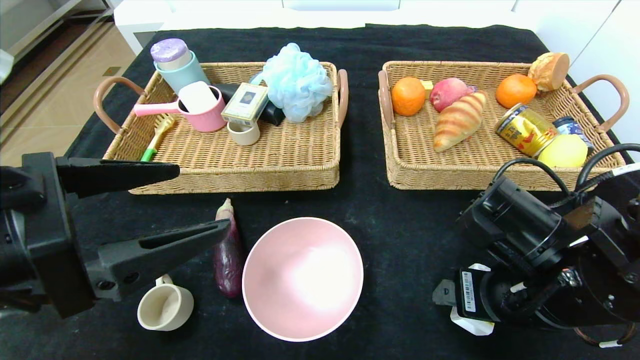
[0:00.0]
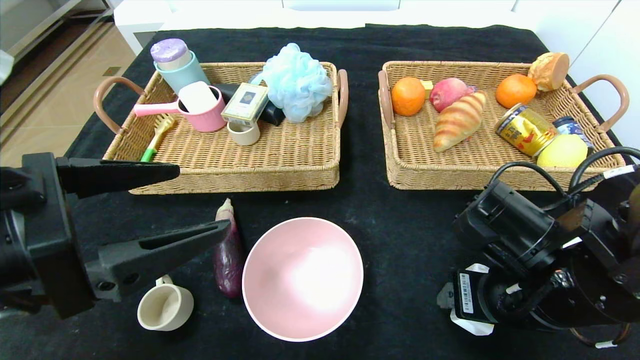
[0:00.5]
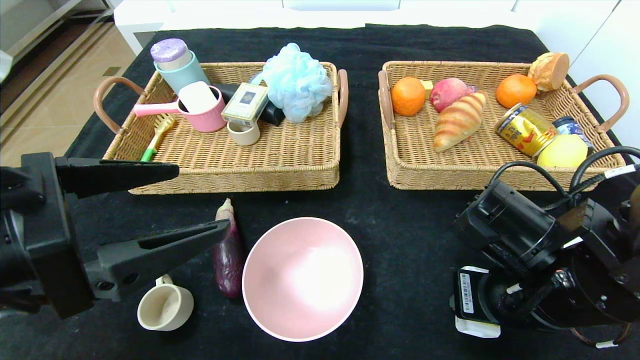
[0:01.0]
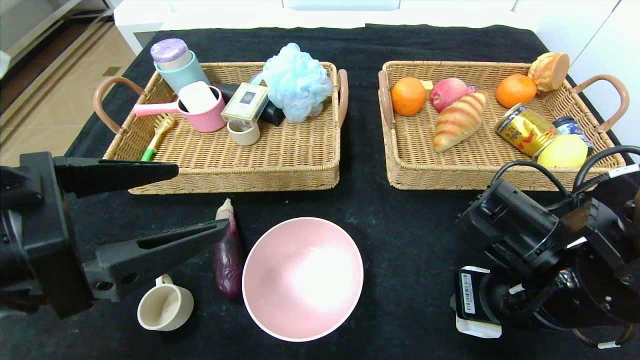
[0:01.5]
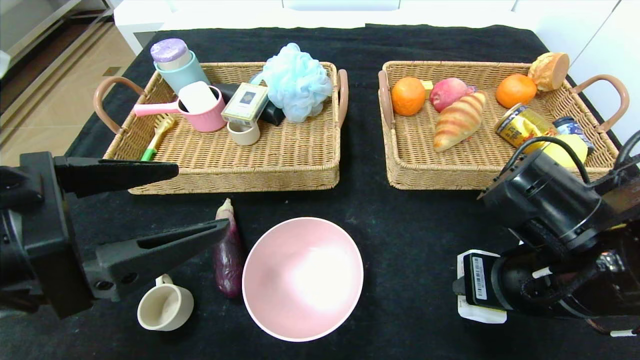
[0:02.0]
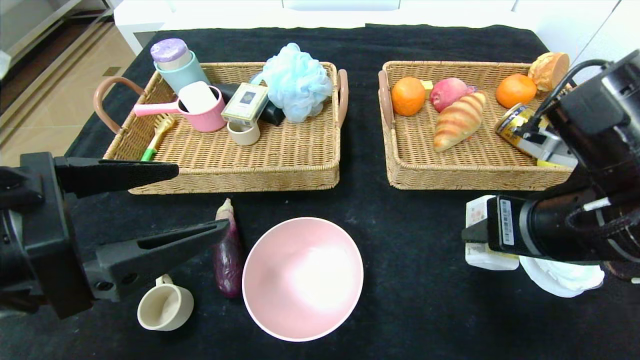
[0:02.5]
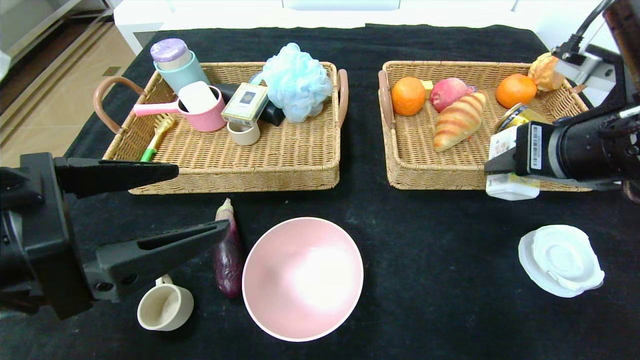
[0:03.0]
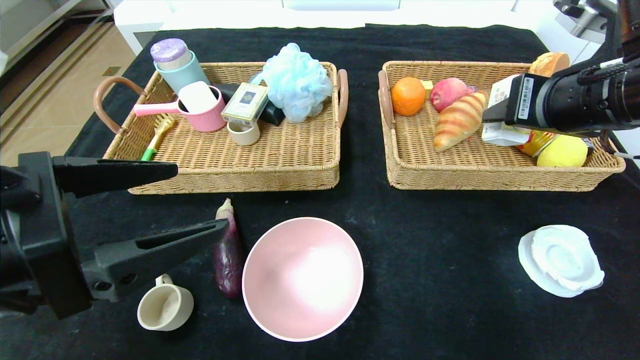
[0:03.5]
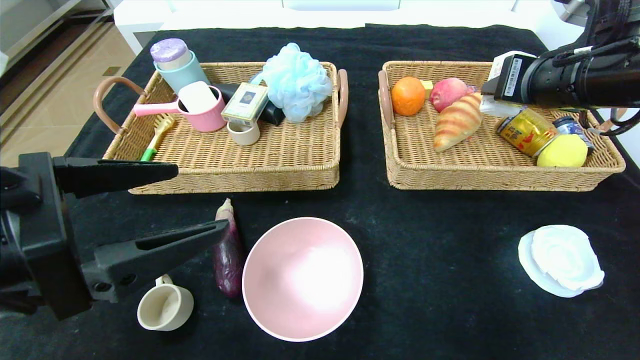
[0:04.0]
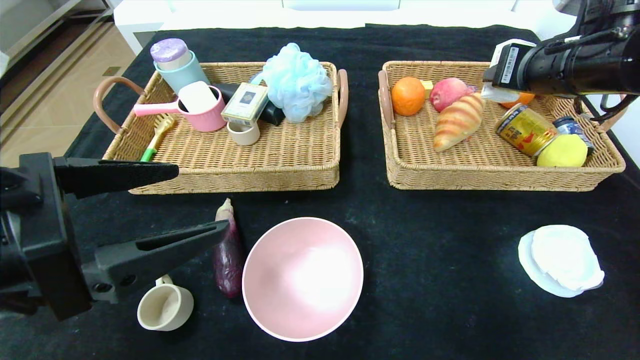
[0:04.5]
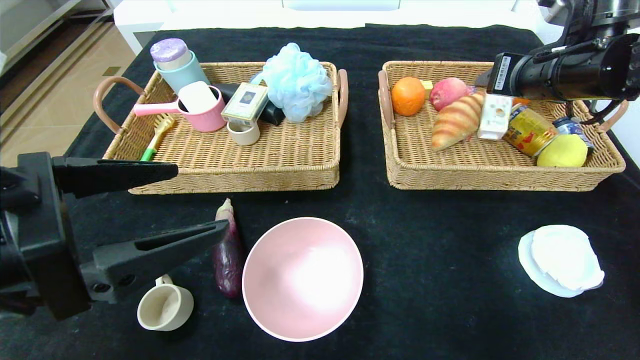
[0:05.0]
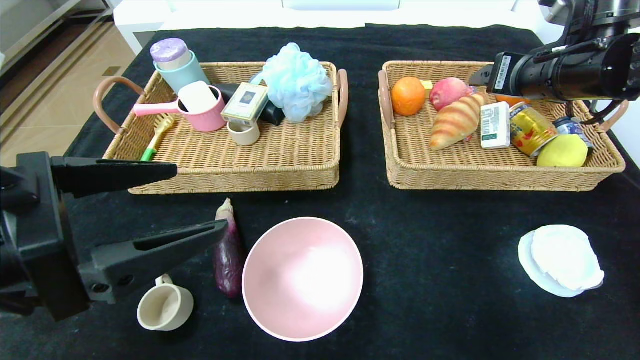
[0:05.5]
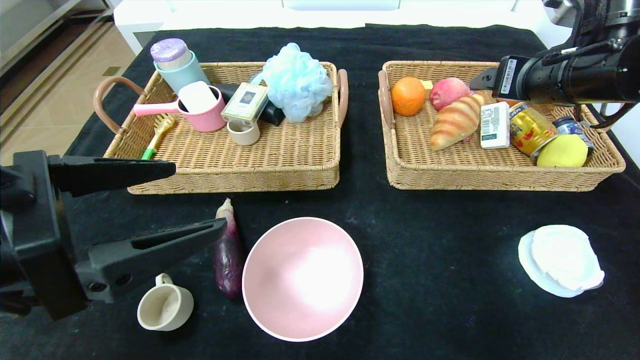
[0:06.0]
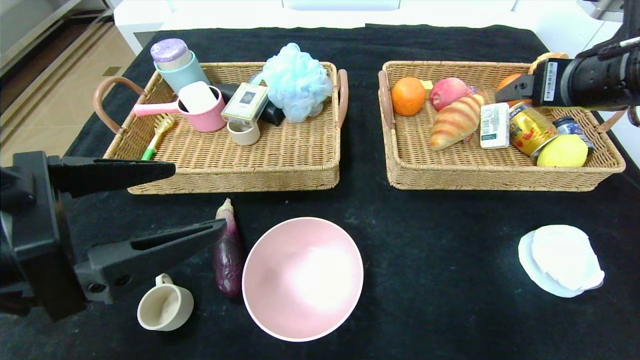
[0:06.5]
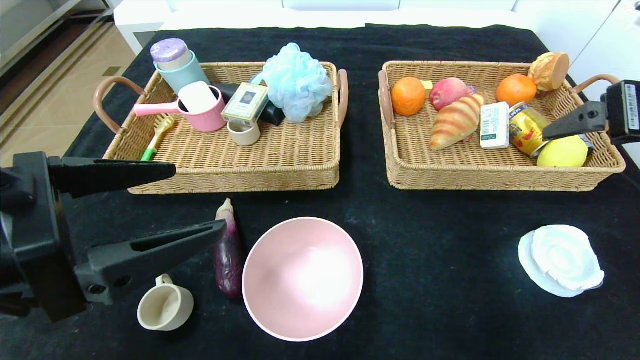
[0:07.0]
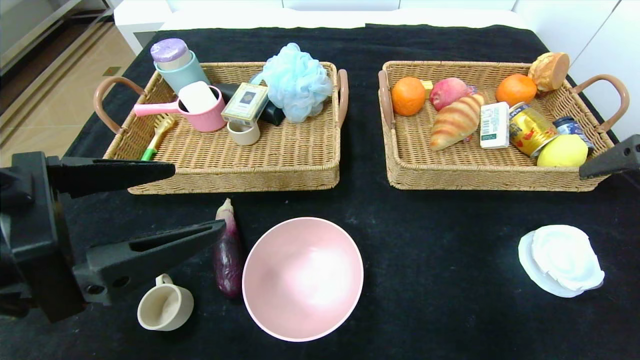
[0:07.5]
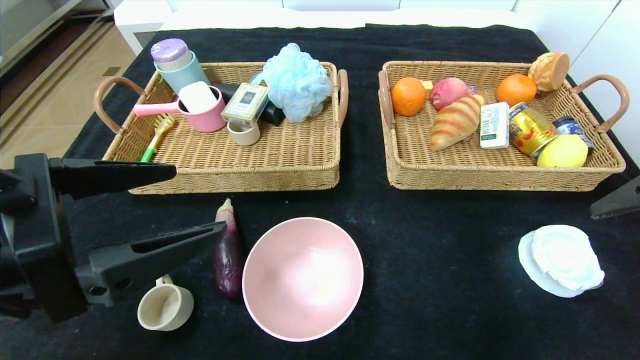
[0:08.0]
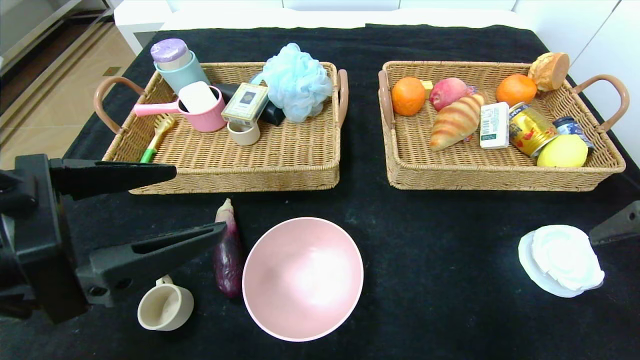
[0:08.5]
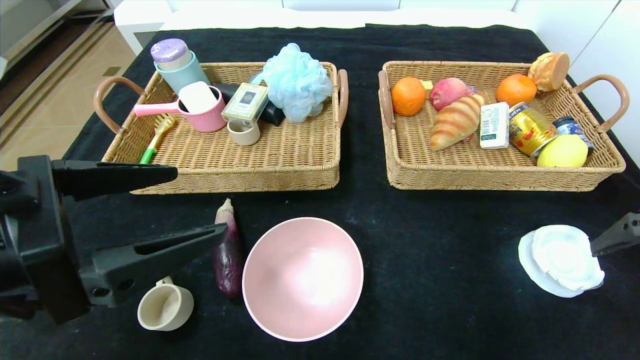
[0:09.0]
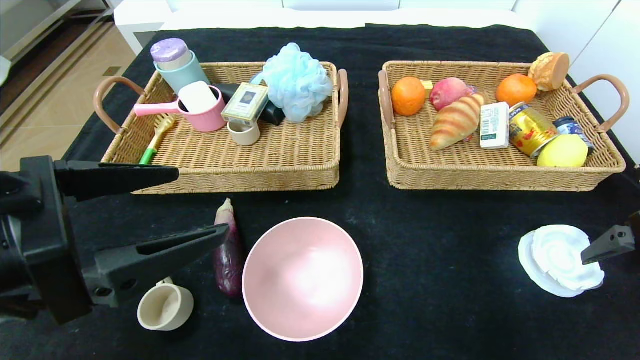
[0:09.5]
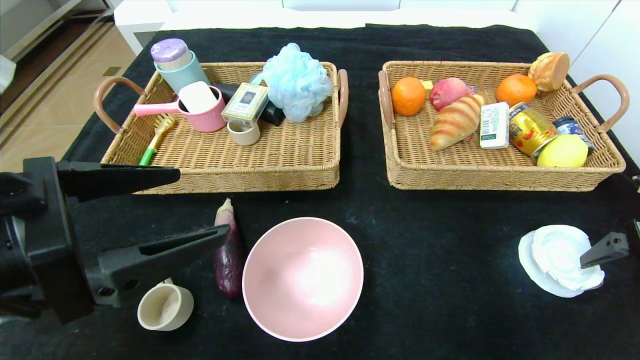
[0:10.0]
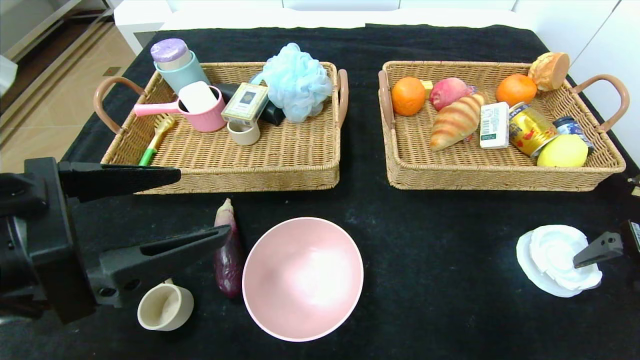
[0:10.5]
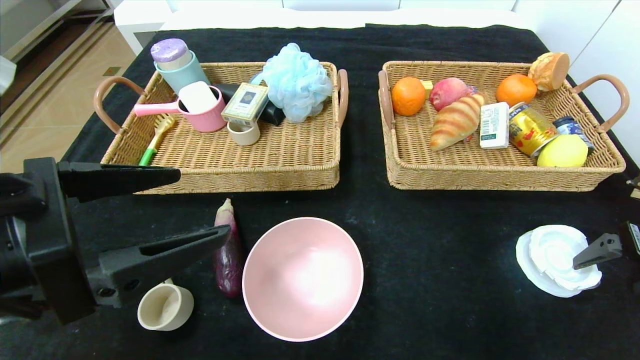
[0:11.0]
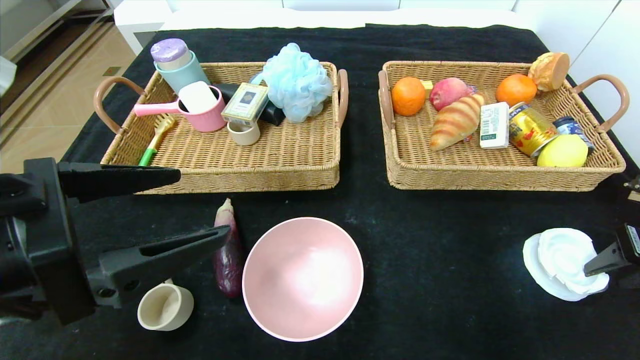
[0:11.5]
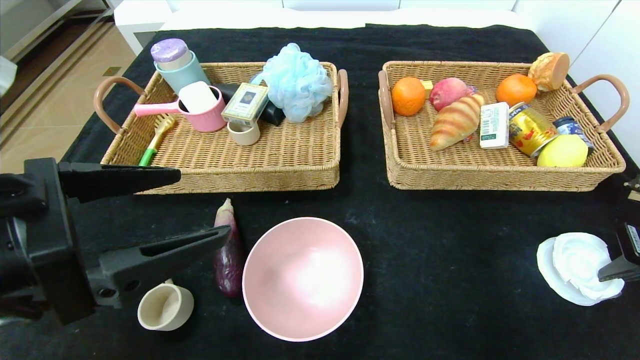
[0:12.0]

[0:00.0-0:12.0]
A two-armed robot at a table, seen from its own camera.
Step, 0.0 to 8.0 s: Pick up the square chewing gum and put it in the right basket.
0.0 to 2.0 s: The right gripper closes its fingers.
2.0 to 4.0 s: The right gripper is displaced upward, forward and to the right by approximately 20 cm.
4.0 to 6.0 s: The right gripper opens up.
6.0 to 8.0 s: The right gripper shifts approximately 15 cm backward and to the right.
8.0 to 10.0 s: The right gripper heads downward and to the right, covering approximately 10 cm.
10.0 to 12.0 s: The right gripper closes.

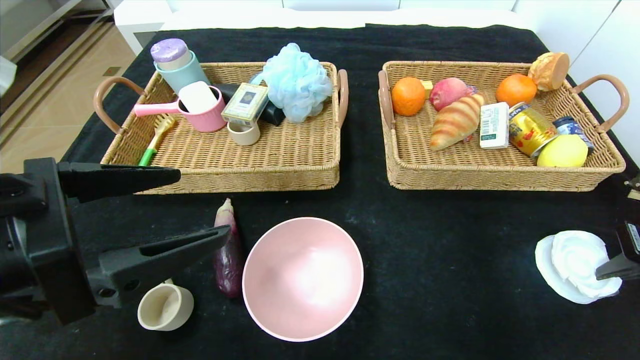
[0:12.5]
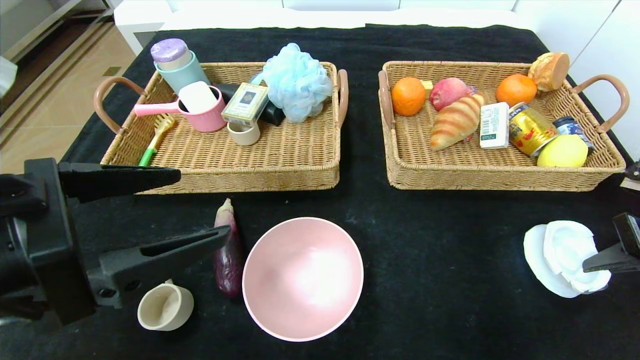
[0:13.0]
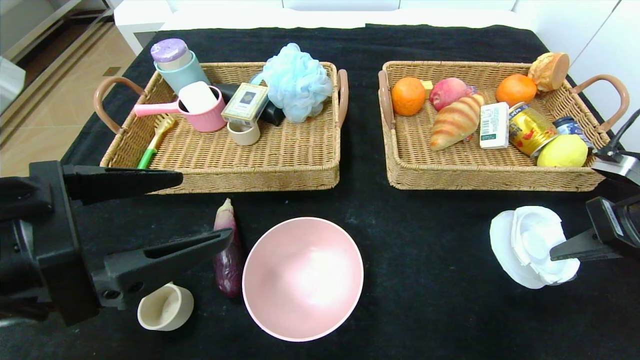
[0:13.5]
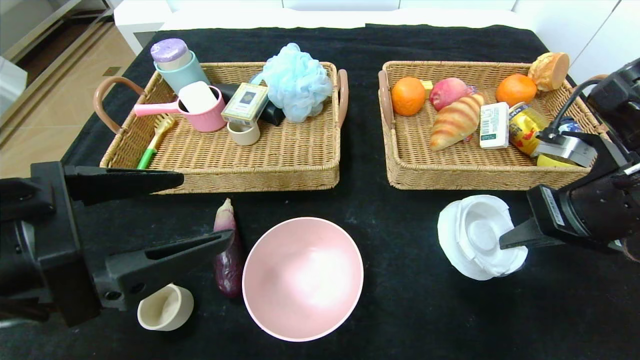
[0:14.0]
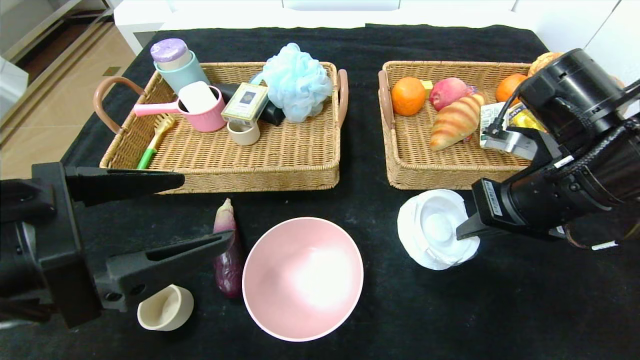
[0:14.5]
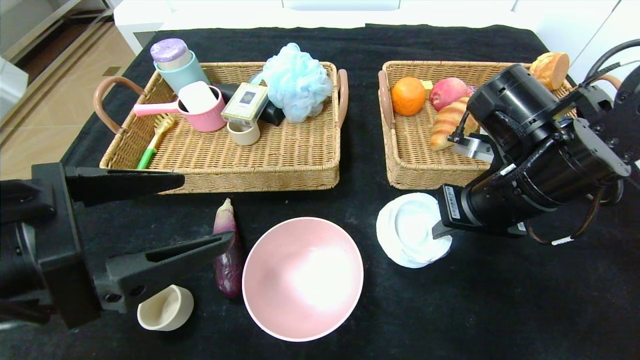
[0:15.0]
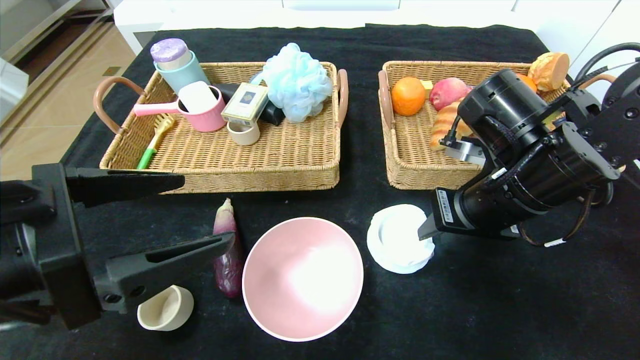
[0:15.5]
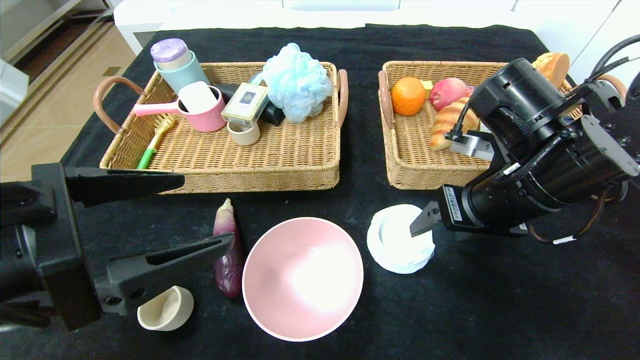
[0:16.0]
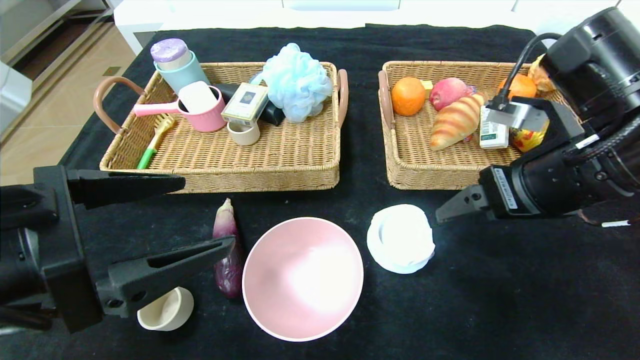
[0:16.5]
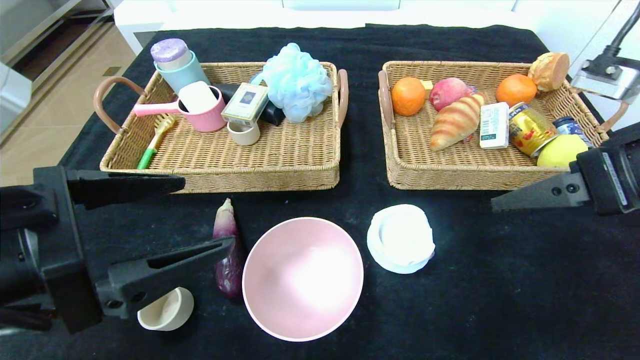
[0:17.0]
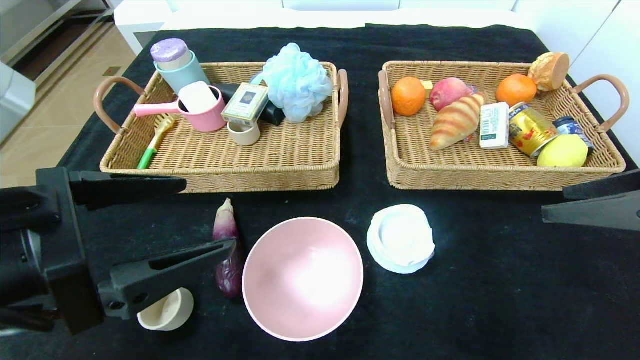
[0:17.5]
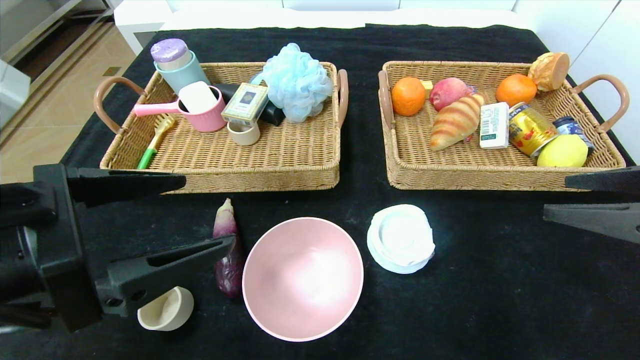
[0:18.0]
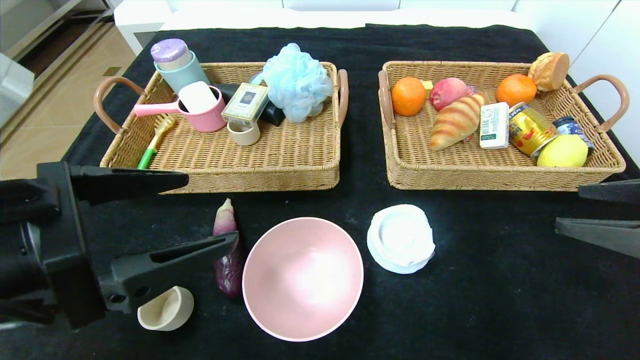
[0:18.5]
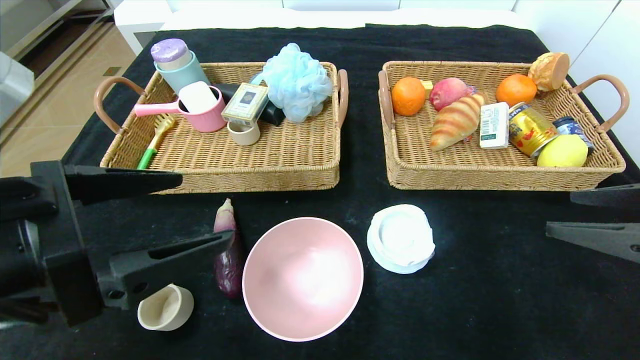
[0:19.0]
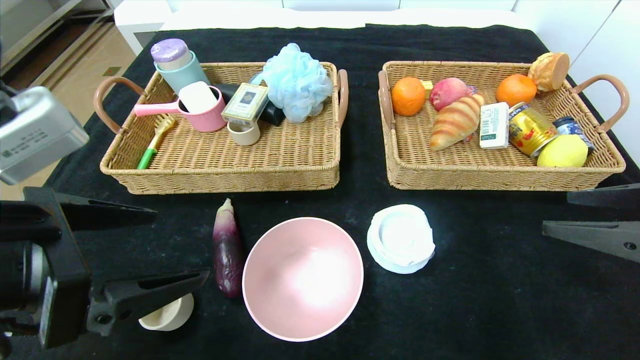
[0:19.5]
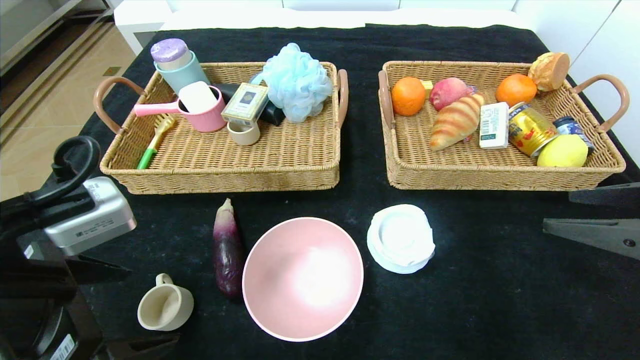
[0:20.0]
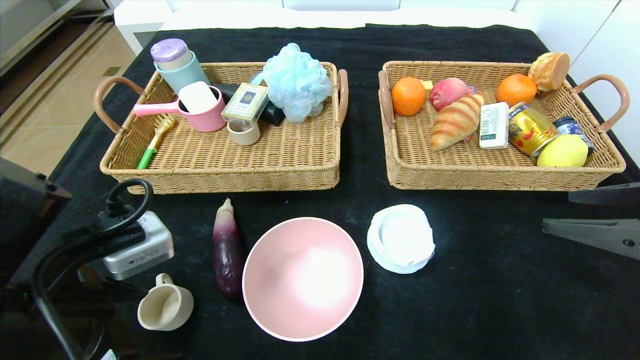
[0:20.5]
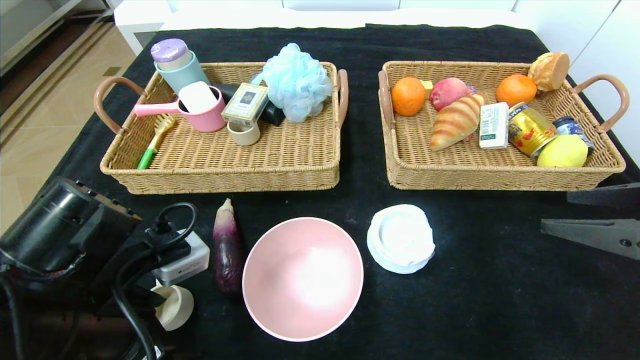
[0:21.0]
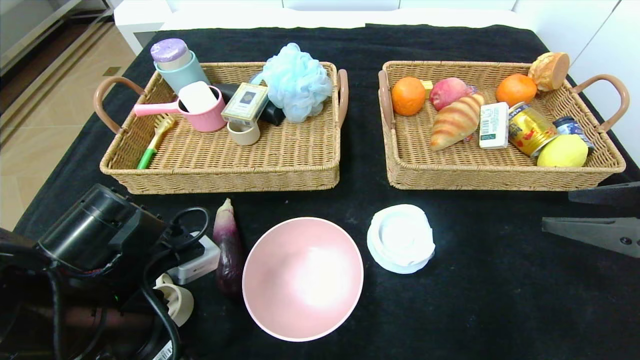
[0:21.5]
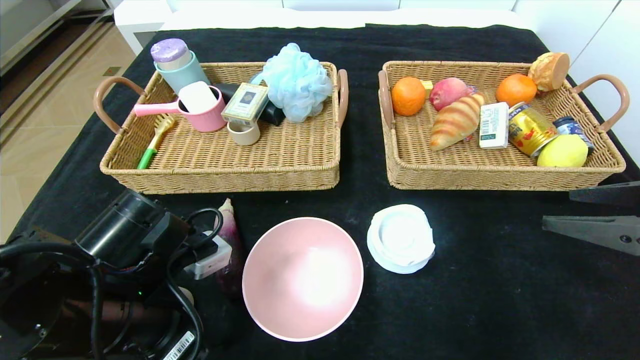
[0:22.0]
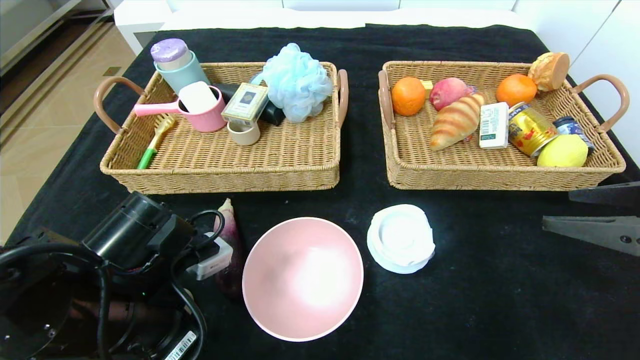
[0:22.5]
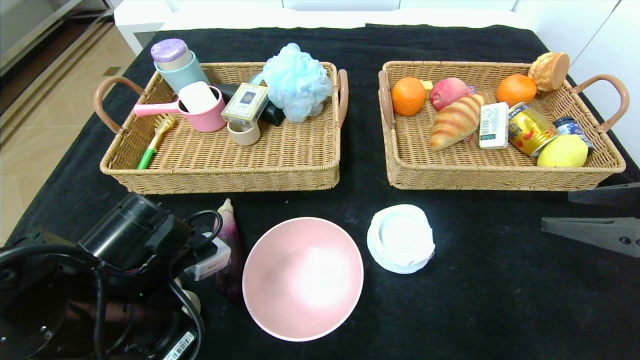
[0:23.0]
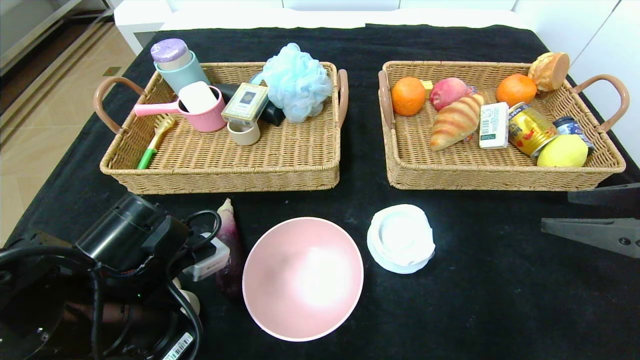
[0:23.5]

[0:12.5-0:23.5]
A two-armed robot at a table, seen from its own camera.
Step, 12.5 to 16.5 s: Place the tape in the center of the table.
12.5 to 14.5 s: The right gripper heads to the left, covering about 20 cm.
14.5 to 16.0 s: The right gripper opens.
16.0 to 18.0 s: The right gripper is displaced to the right and backward by roughly 15 cm.
20.0 to 21.5 s: The left gripper travels downward by approximately 5 cm.
21.5 to 23.5 s: The left gripper closes its fingers.
